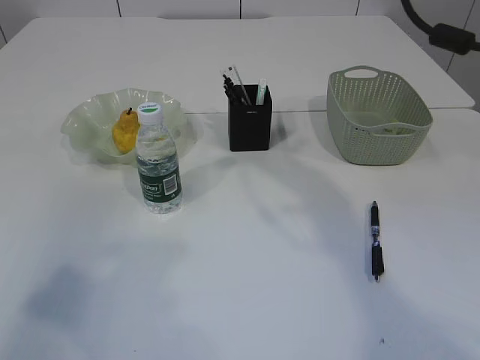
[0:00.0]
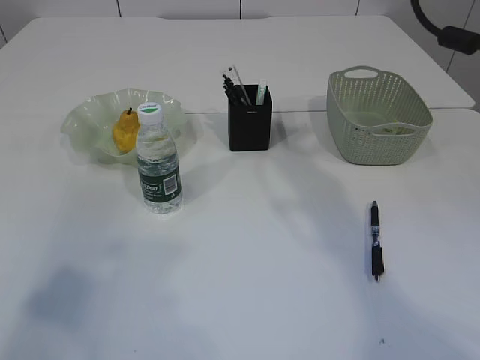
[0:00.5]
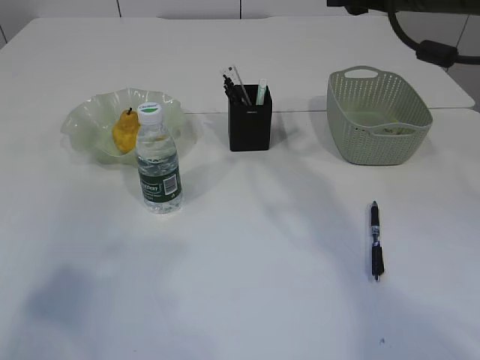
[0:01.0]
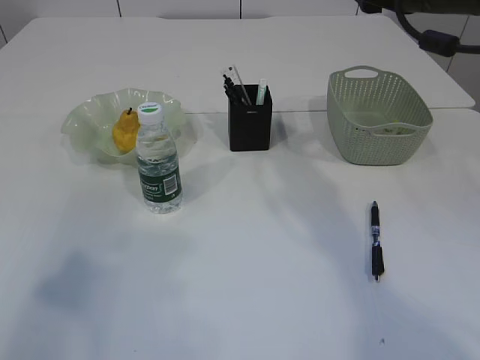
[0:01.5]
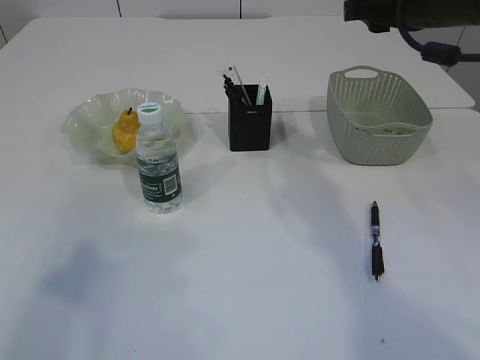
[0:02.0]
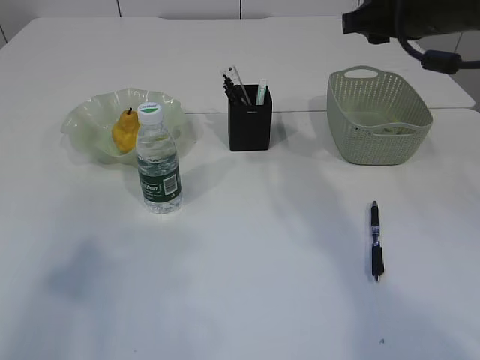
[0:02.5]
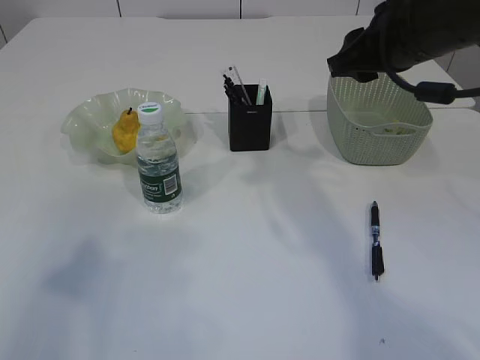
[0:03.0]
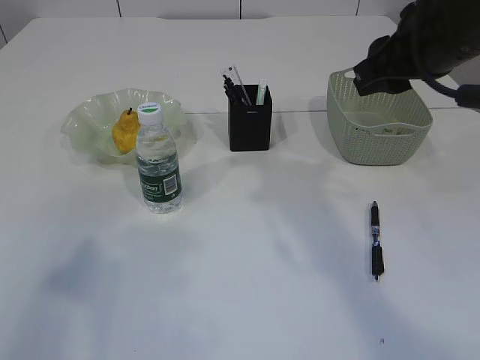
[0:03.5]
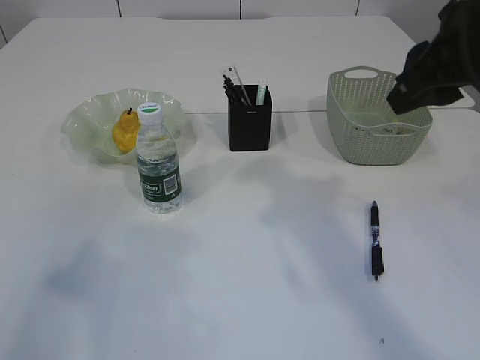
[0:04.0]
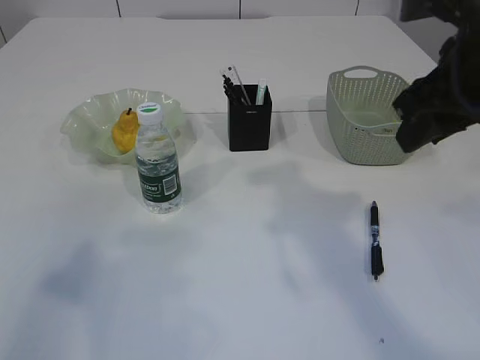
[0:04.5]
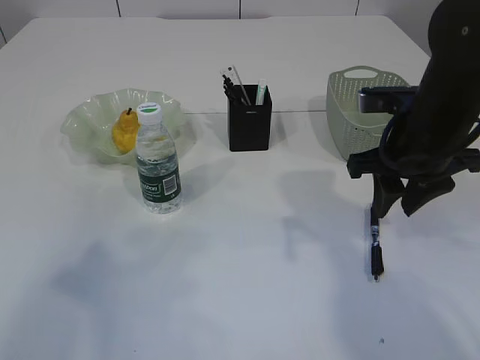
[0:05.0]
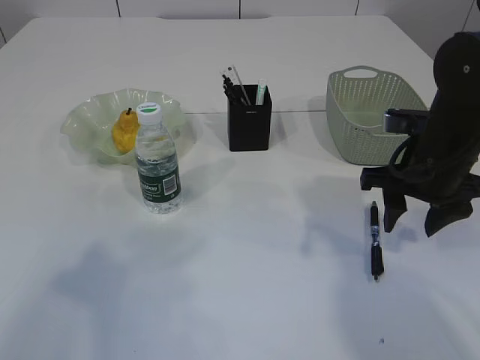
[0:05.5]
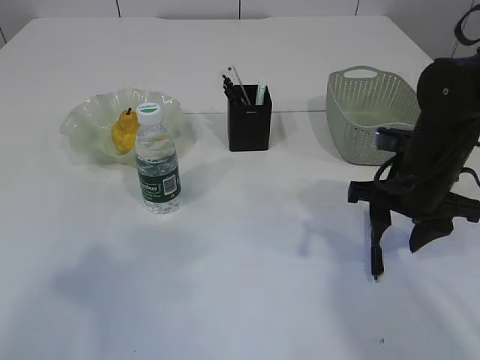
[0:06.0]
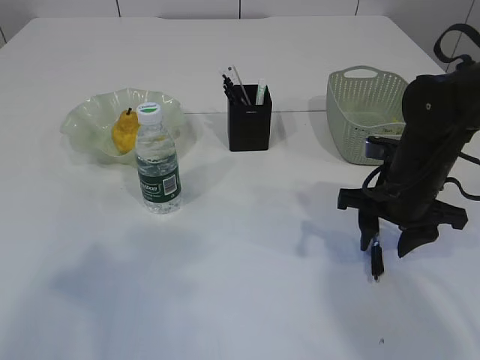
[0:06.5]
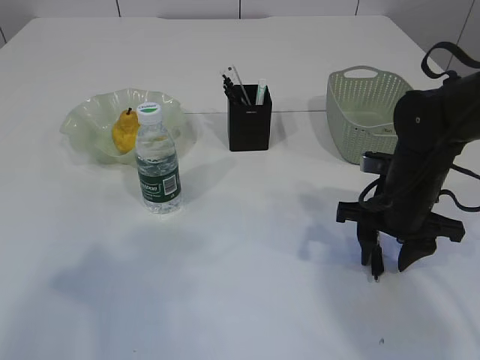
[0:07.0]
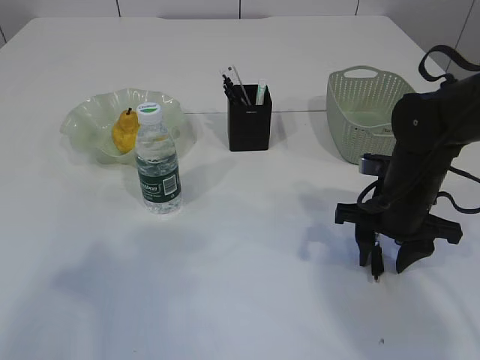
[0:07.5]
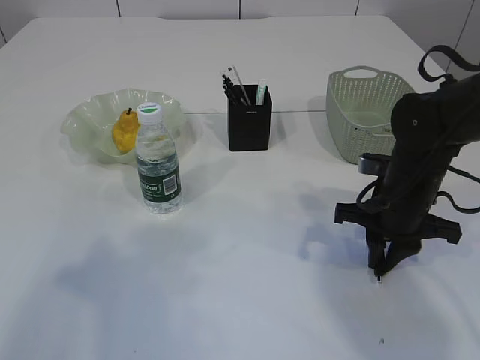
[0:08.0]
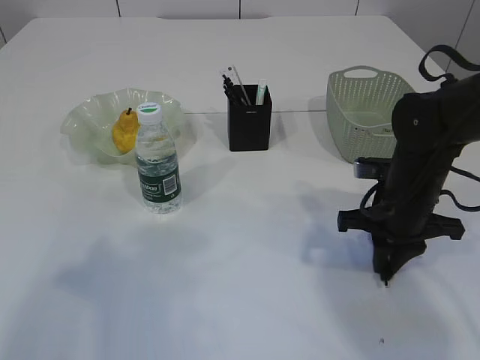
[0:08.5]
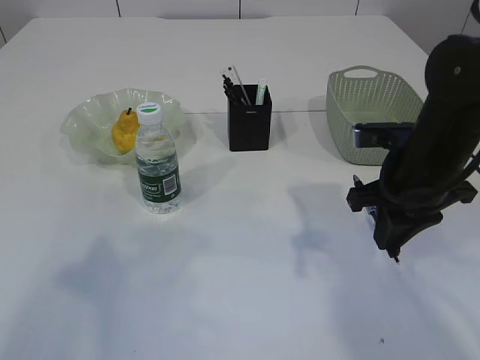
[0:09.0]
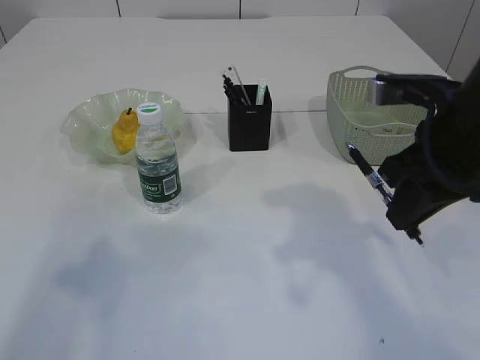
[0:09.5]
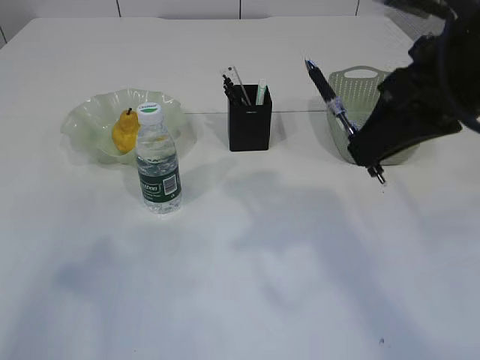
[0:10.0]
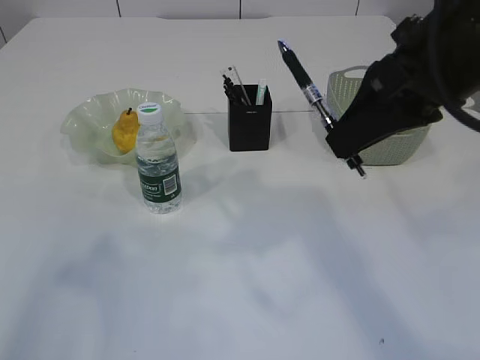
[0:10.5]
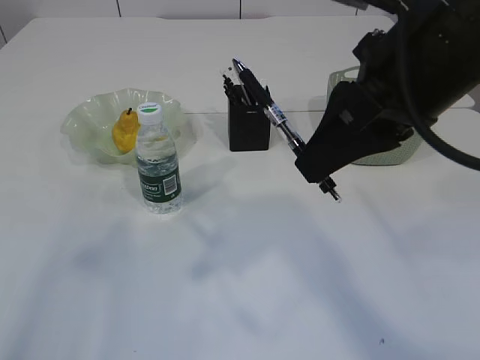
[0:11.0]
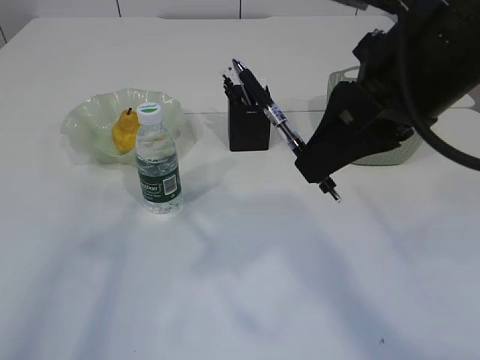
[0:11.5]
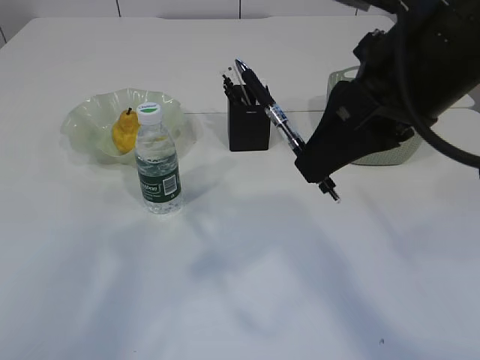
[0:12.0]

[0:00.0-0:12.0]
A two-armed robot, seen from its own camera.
Step, 0:00.0 to 0:09.5: Pick up the pen with right arm.
0:02.0 to 0:04.0: The right gripper shifts approximately 10 cm backward.
0:04.0 to 0:06.0: The right gripper is displaced downward by some 20 cm.
0:06.0 to 0:08.0: The right gripper closes.
0:08.0 to 0:10.0: The right gripper travels upward by some 20 cm.
0:10.0 to 0:12.0: The left gripper shifts by roughly 5 cm. Meanwhile the right gripper shifts by about 5 cm.

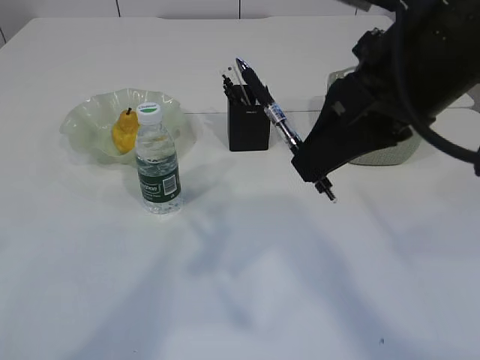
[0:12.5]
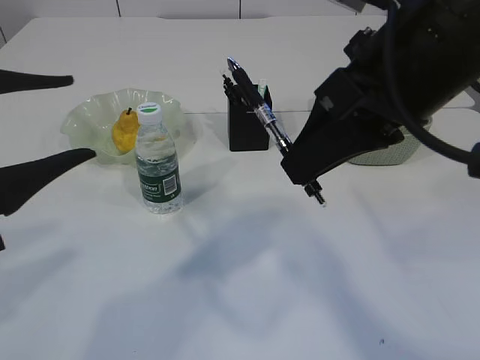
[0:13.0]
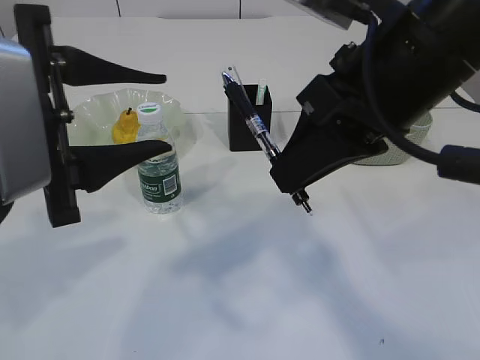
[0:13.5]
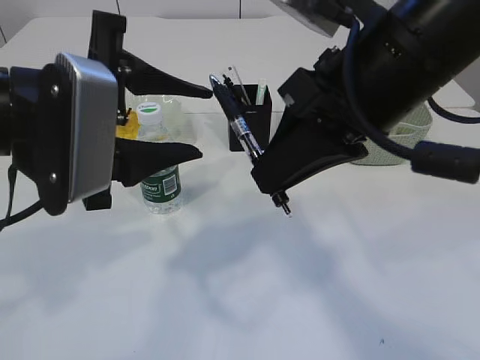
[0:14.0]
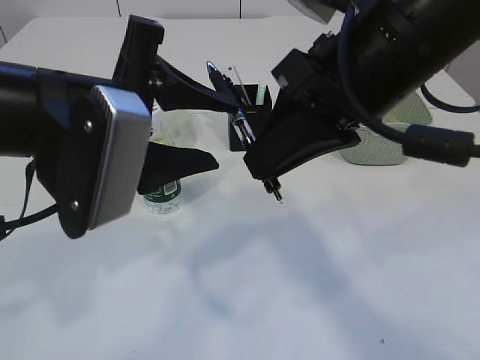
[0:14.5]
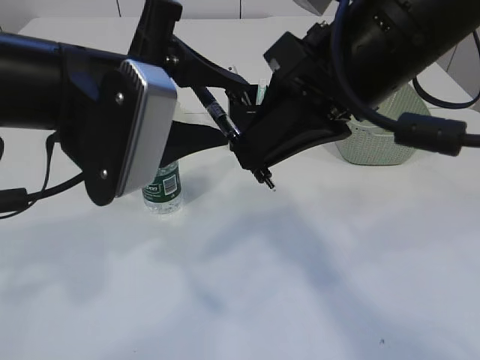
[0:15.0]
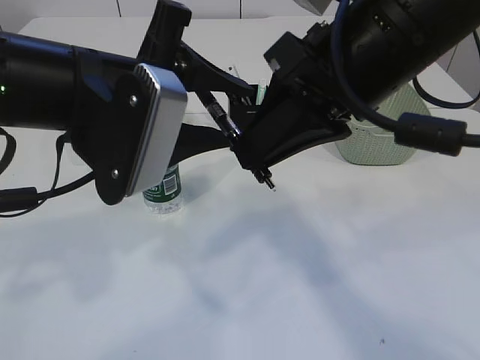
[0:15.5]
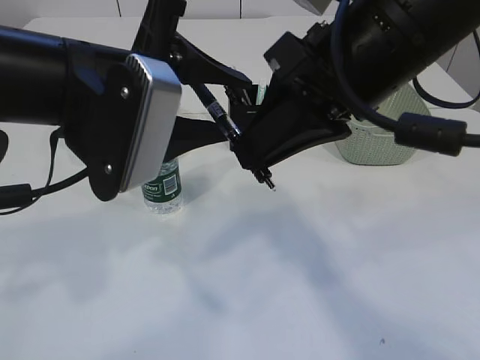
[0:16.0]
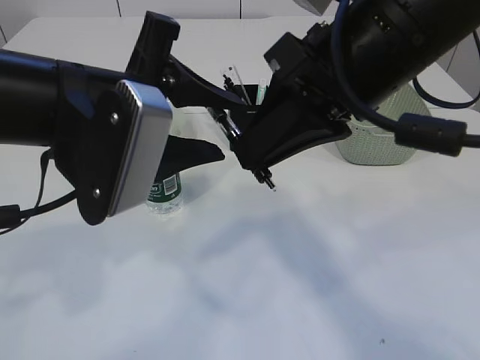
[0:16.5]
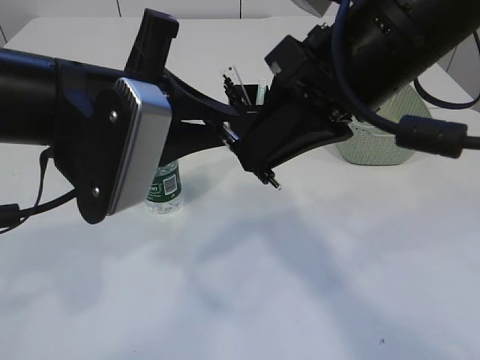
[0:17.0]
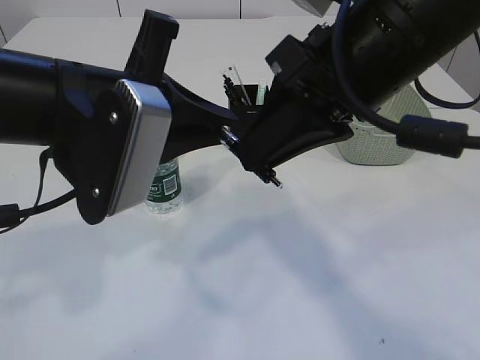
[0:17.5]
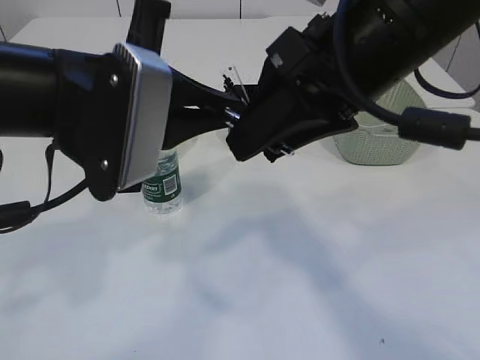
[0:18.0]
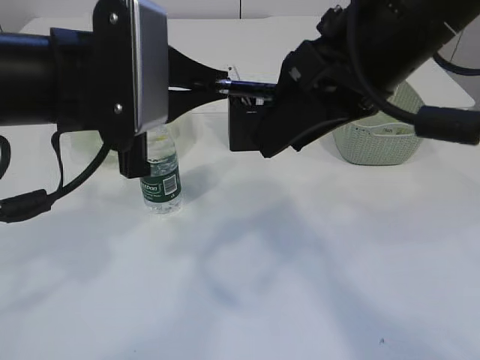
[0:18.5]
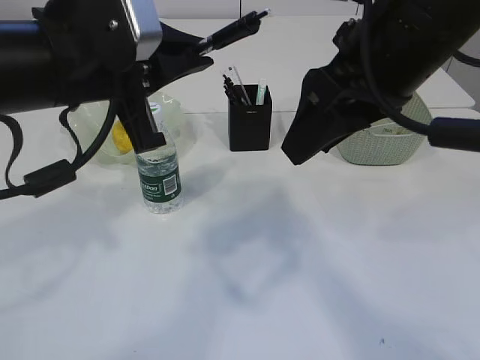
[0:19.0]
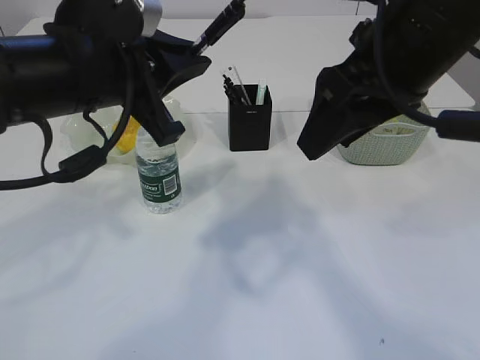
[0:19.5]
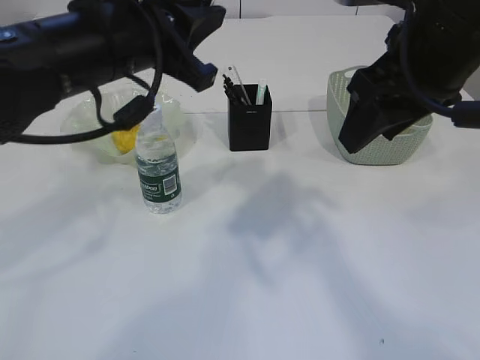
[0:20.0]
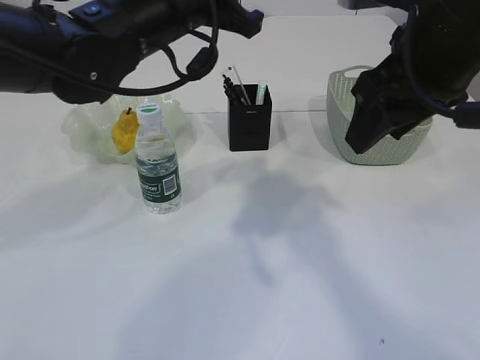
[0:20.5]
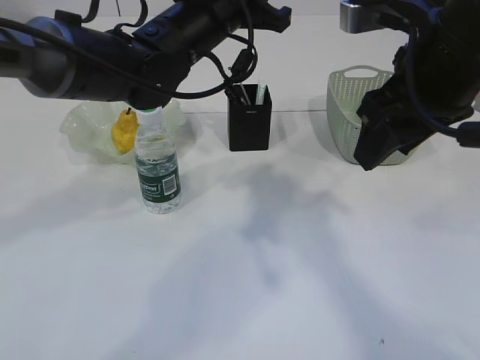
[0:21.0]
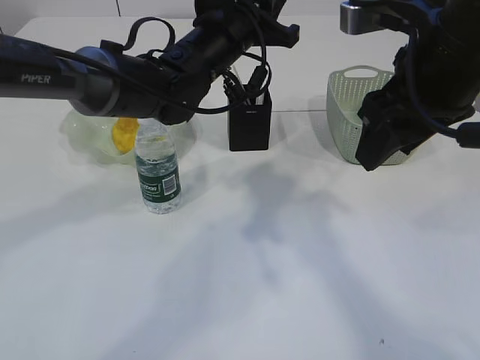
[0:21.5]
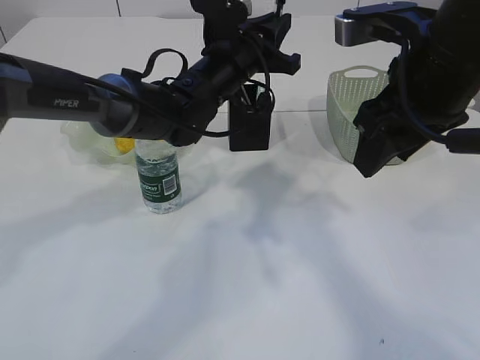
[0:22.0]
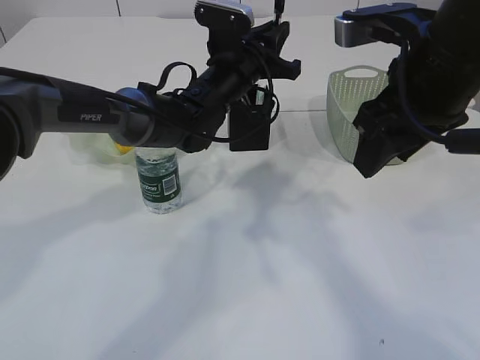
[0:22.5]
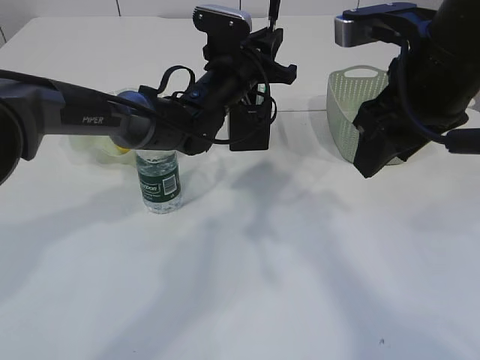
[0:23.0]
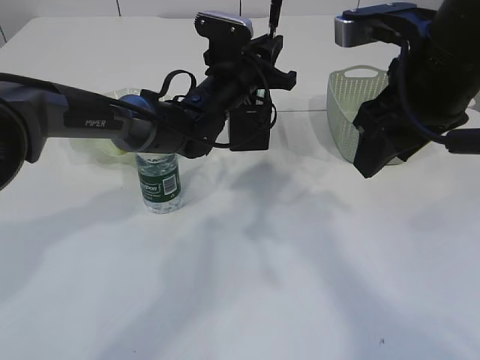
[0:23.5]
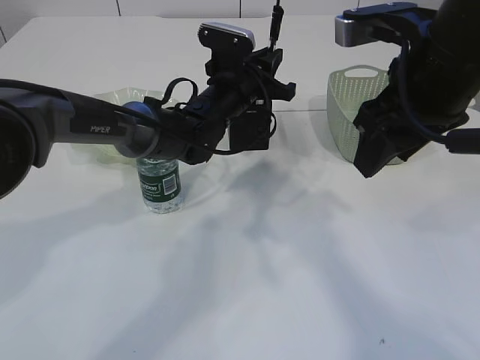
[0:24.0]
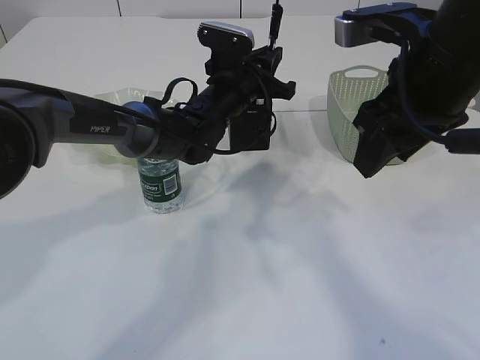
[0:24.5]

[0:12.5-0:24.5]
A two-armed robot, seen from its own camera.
0:12.5 to 0:14.5: The left gripper heads to the right and forward, covering roughly 15 cm.
0:14.5 to 0:16.5: There are only small adjustments of the grippers.
0:16.5 to 0:18.5: The left gripper closes, while the right gripper opens its fingers.
0:18.5 to 0:20.5: The right gripper shifts some 5 cm to the right; the left gripper travels forward by roughly 10 cm.
0:20.5 to 0:22.5: The left gripper heads downward, forward and to the right, covering approximately 15 cm.
0:22.5 to 0:24.5: The grippers stay close to where they were, moving slightly.

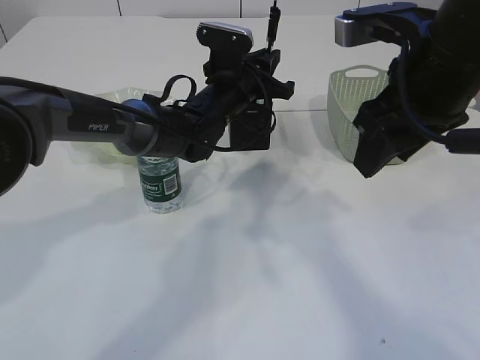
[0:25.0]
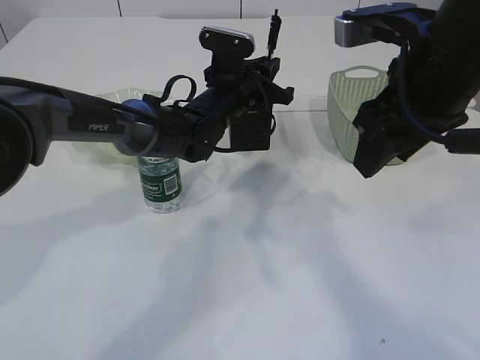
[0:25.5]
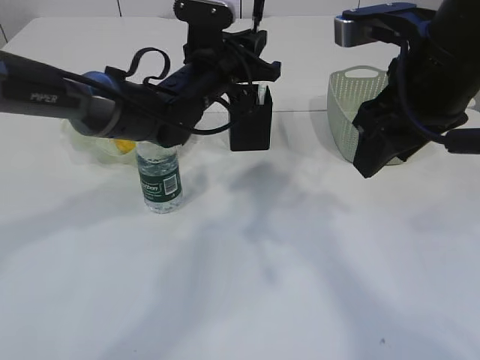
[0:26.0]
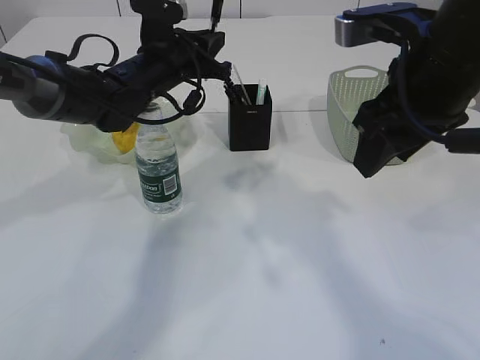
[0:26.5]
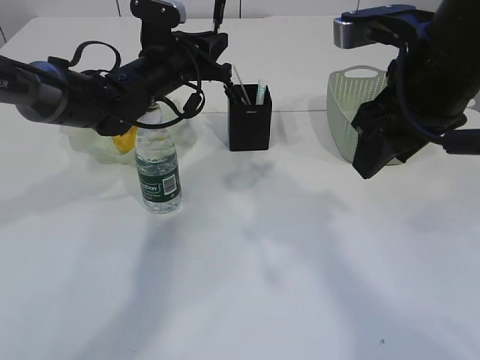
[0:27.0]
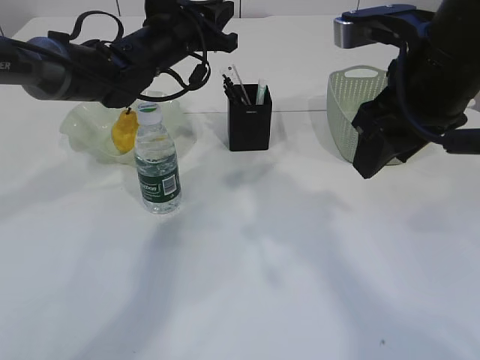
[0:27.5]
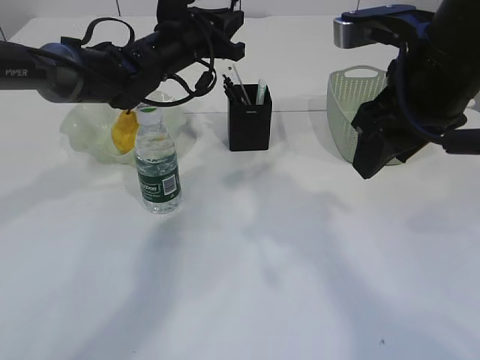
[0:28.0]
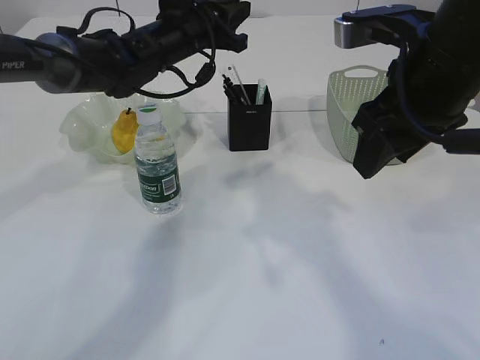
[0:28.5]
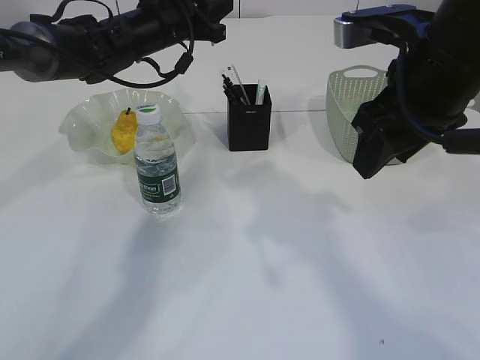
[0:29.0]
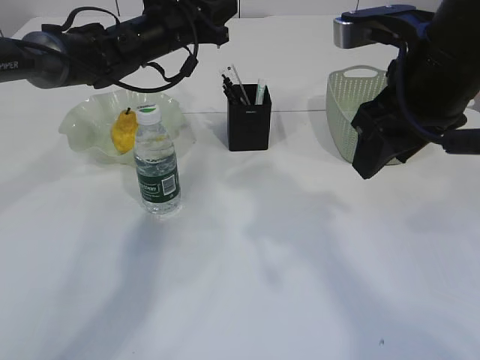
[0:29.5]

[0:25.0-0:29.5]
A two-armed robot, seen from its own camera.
0:25.0 to 0:27.0: The left gripper heads to the left, covering roughly 10 cm.
0:27.0 to 0:29.5: The left gripper shifts approximately 5 cm forward.
